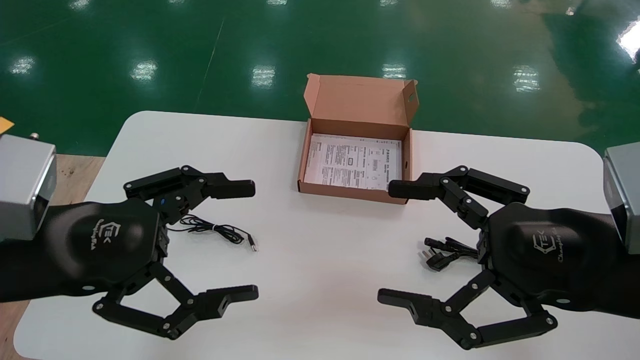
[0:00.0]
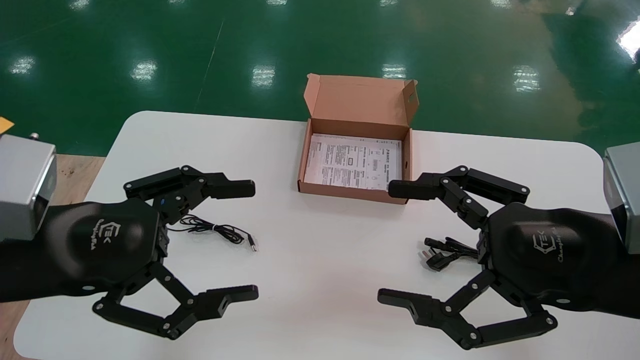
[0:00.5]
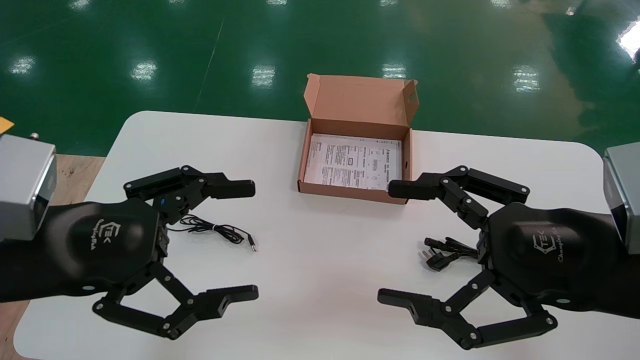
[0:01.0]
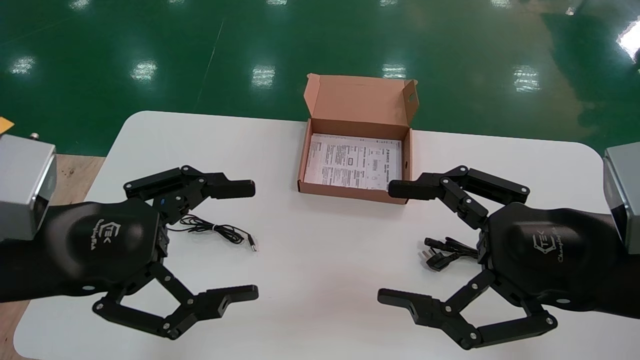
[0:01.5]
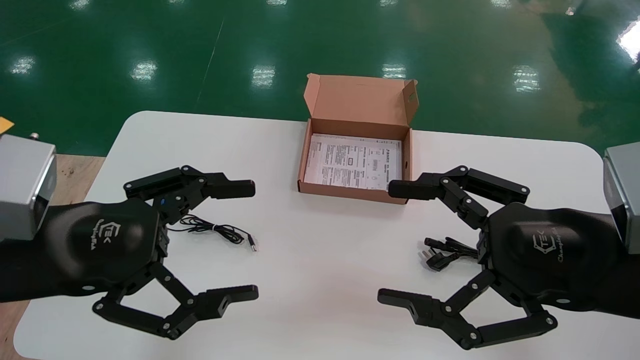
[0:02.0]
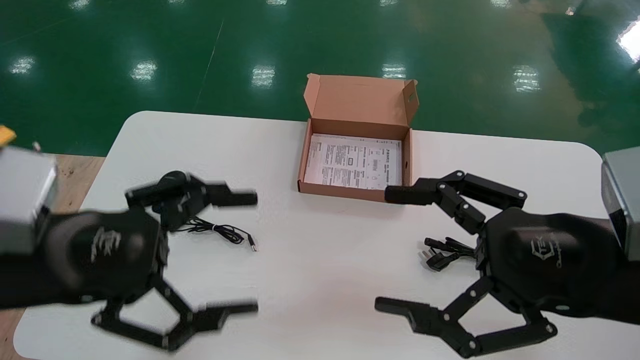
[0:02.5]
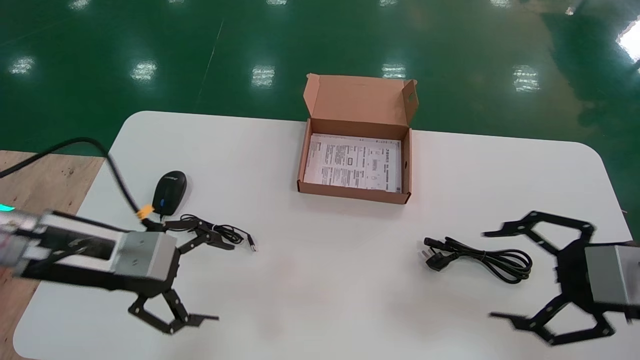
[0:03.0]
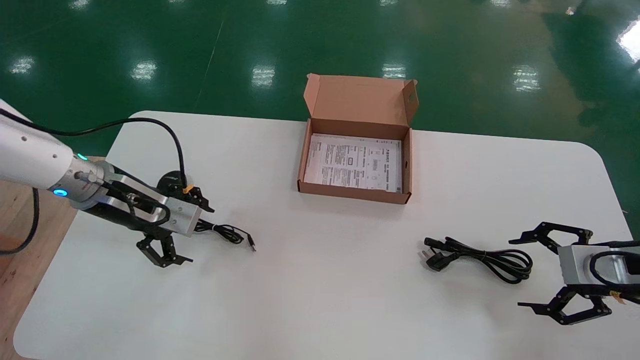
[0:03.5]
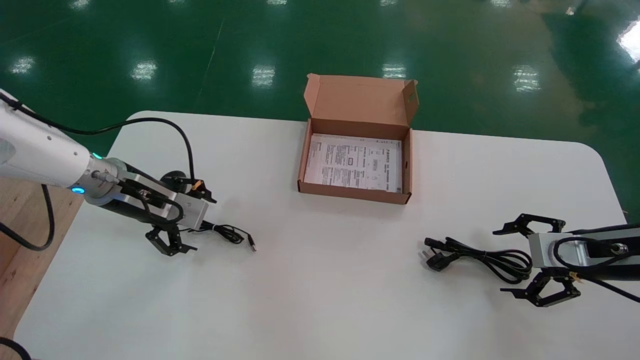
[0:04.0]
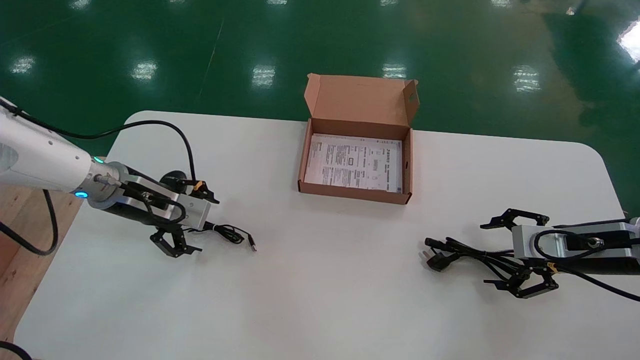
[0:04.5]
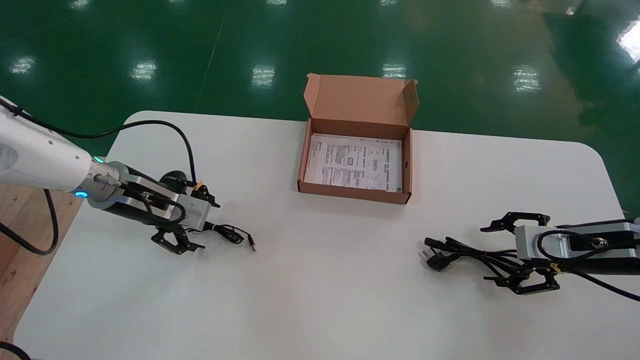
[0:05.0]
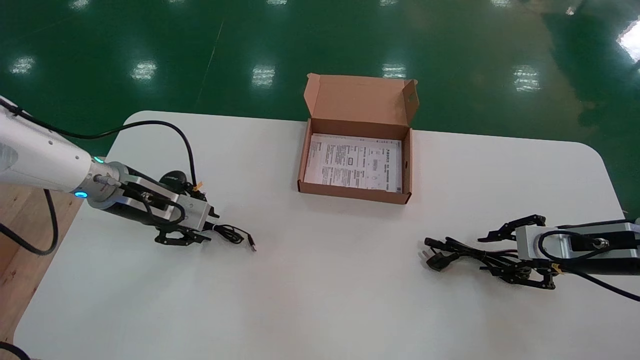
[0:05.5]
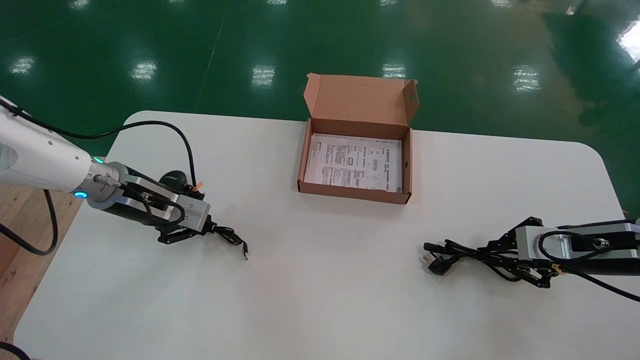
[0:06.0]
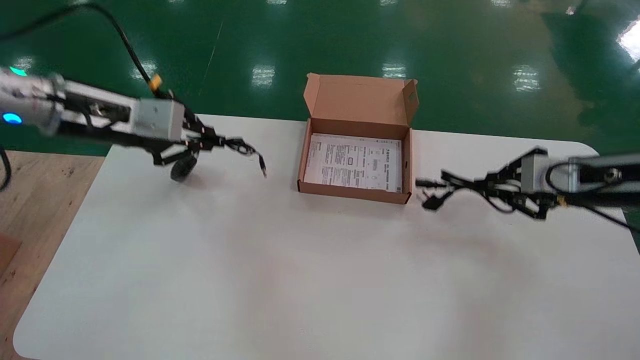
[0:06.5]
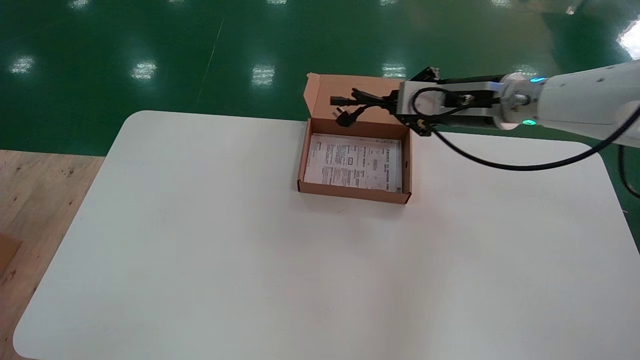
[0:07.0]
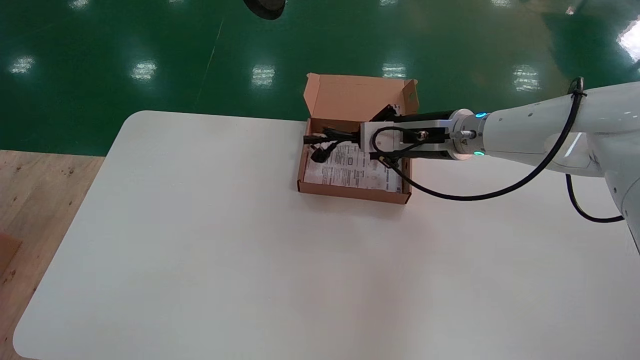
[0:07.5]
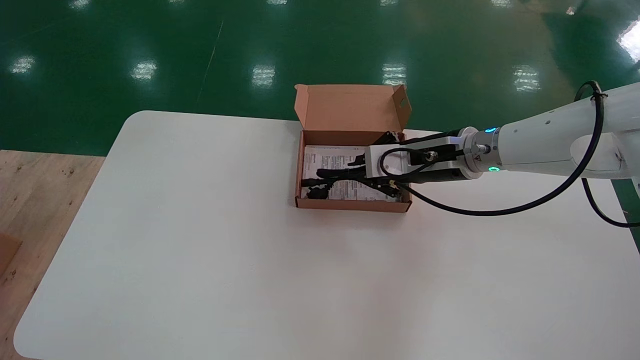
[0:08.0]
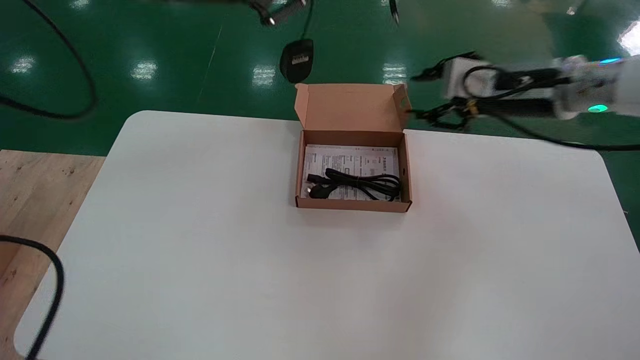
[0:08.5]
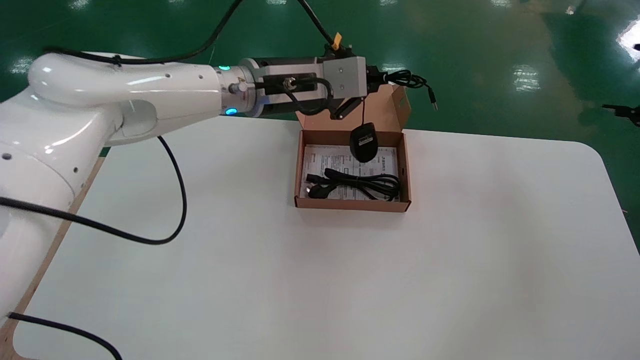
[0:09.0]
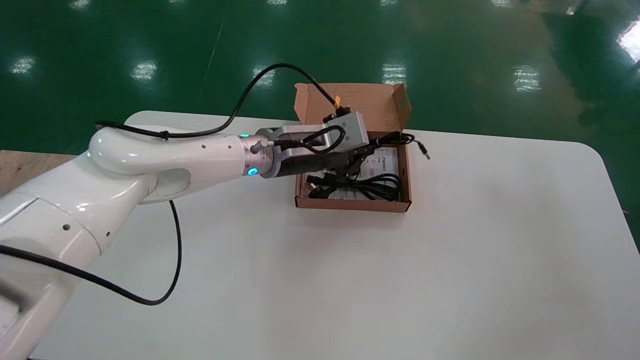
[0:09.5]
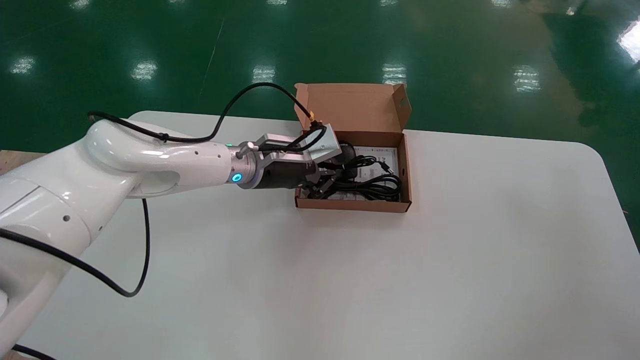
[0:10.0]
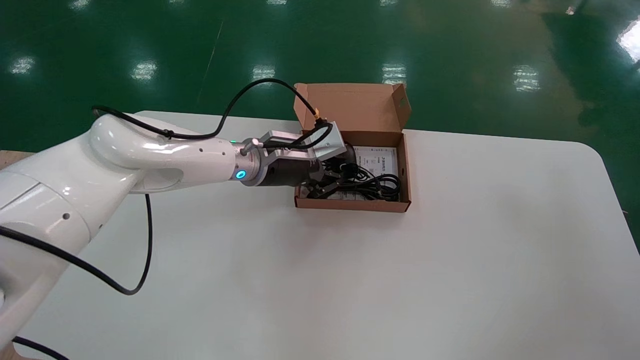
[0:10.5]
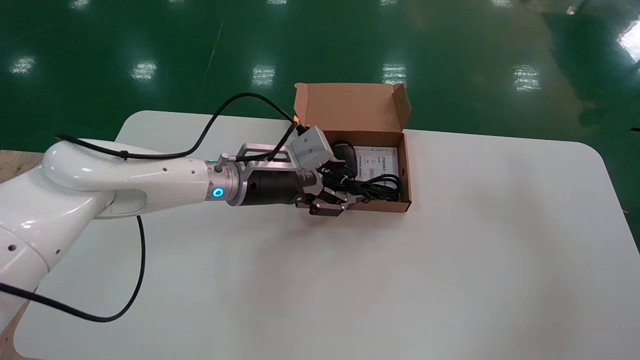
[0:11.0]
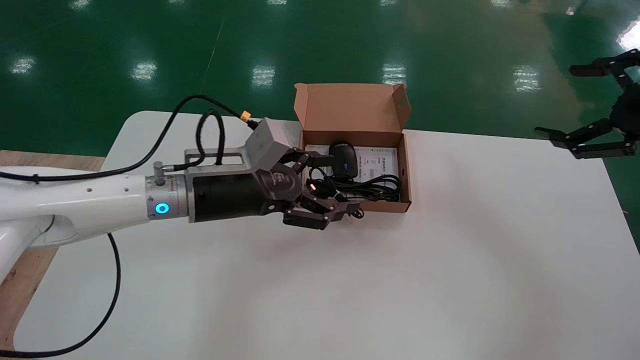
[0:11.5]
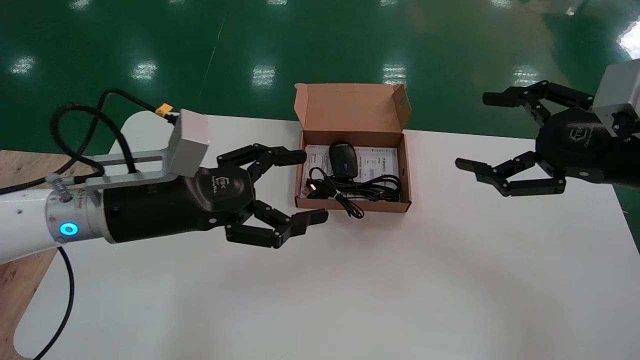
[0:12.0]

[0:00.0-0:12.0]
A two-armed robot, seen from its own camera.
Step, 0:03.0 to 0:06.0: Simultaneously pick up the mouse and power cord from the accessory packaging area.
Step, 0:06.5 to 0:10.5: Place the mouse and power cord into the box.
0:00.0 to 0:02.0: The two grippers keep their place.
0:02.0 to 0:04.0: The right gripper travels forward, to the right and downward by approximately 25 cm. The left gripper shifts some 20 cm forward.
0:04.0 to 0:06.0: The left gripper closes up. The right gripper closes its fingers.
0:06.0 to 0:08.0: The left gripper is displaced upward by about 35 cm. Meanwhile the right gripper is displaced to the left, upward and forward by roughly 25 cm.
0:08.0 to 0:10.0: The left gripper goes about 40 cm downward, to the right and forward; the right gripper goes roughly 40 cm to the right and backward, and opens up.
0:10.0 to 0:12.0: The left gripper goes about 20 cm backward and to the left, and opens. The right gripper shifts roughly 25 cm to the left.

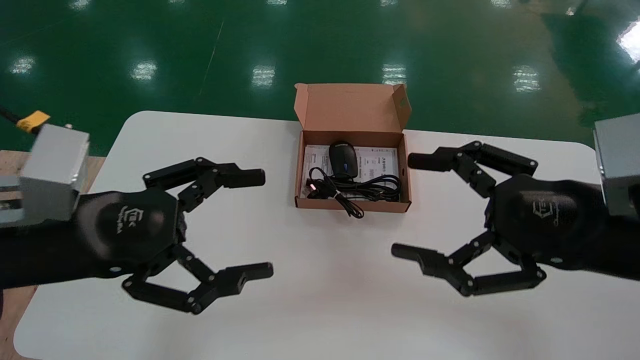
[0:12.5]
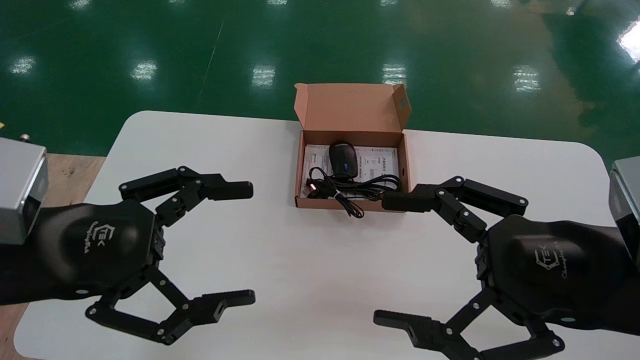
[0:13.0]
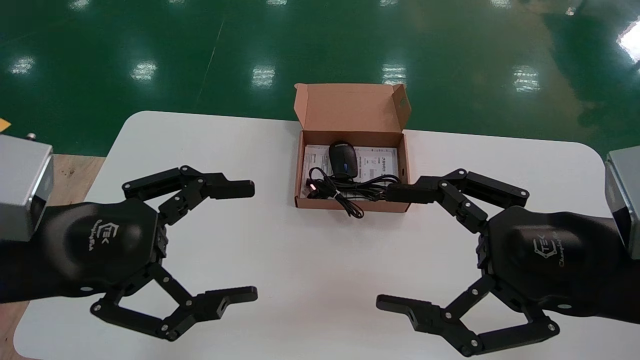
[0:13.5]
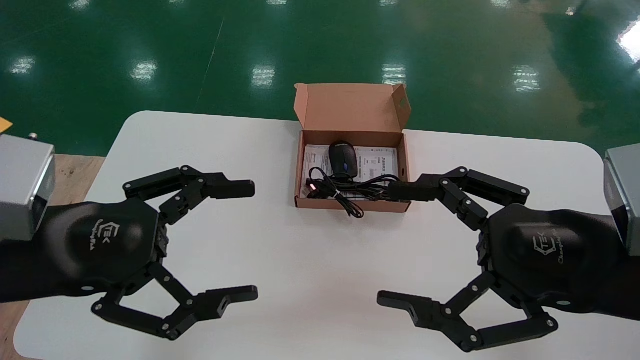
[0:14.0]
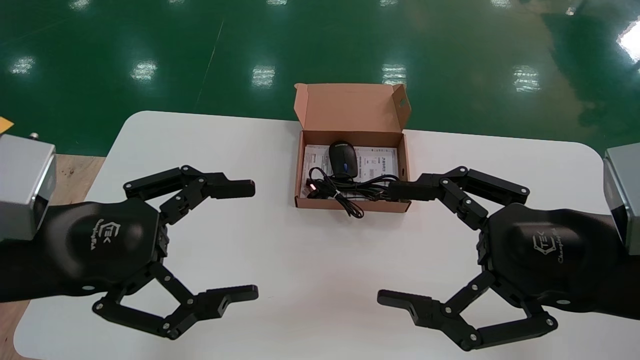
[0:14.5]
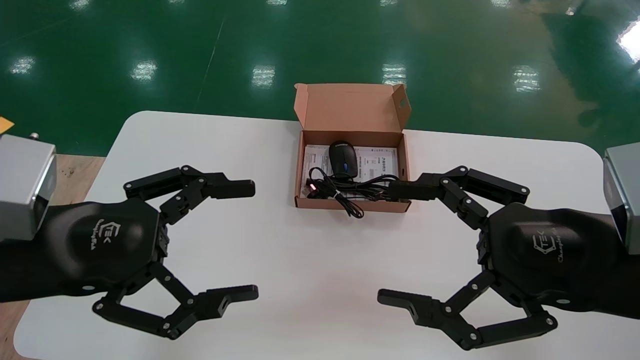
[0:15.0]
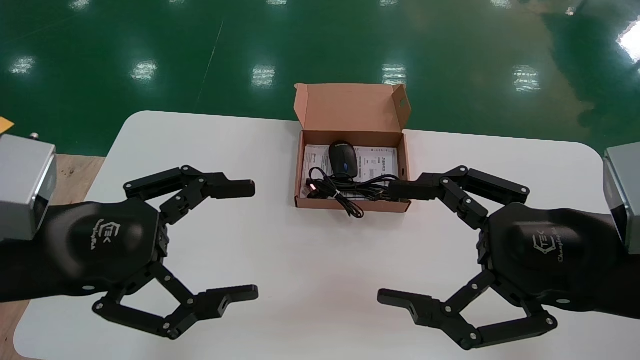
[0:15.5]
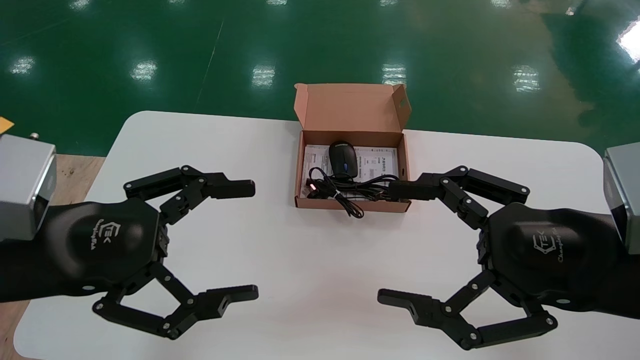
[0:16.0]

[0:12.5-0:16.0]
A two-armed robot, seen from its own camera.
0:14.5 to 0:16.0: Neither gripper changes place.
